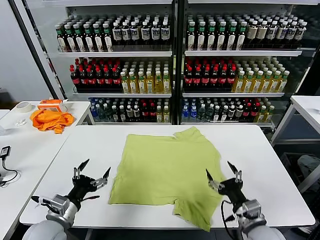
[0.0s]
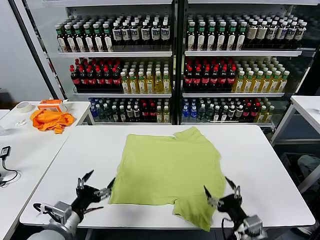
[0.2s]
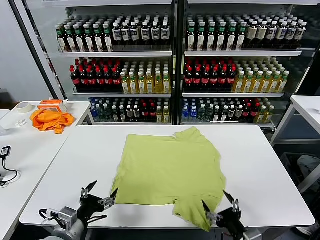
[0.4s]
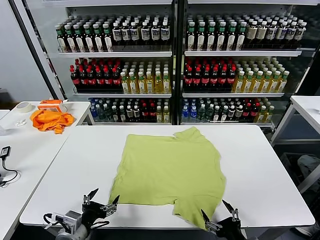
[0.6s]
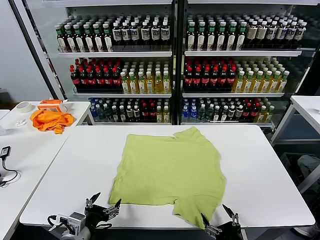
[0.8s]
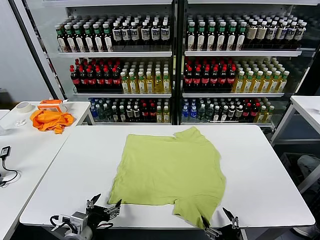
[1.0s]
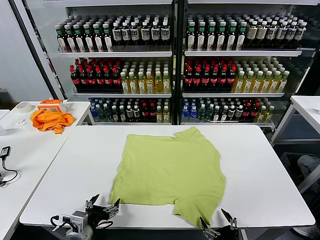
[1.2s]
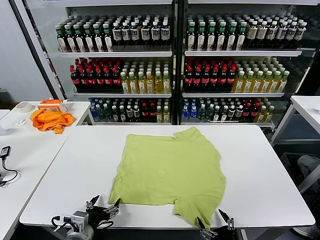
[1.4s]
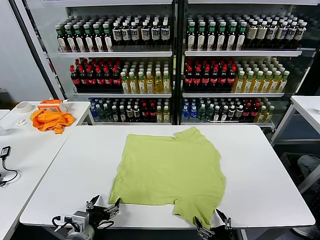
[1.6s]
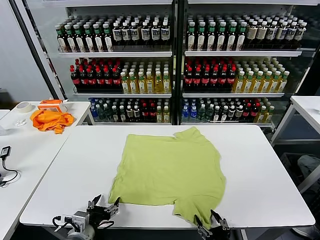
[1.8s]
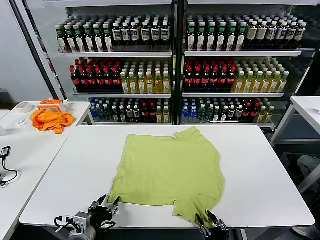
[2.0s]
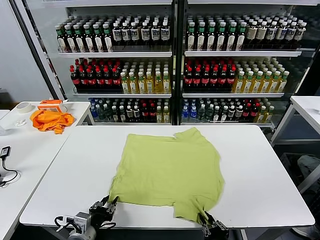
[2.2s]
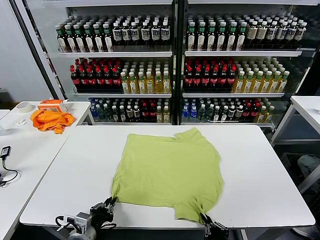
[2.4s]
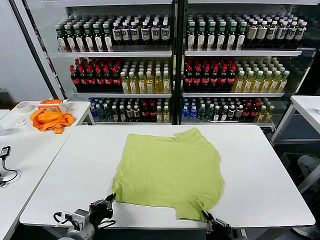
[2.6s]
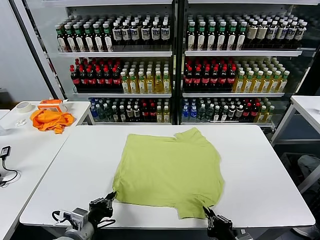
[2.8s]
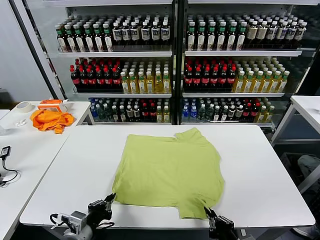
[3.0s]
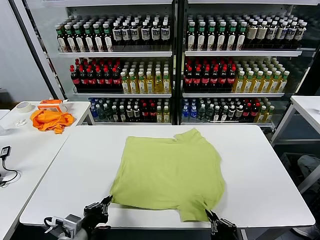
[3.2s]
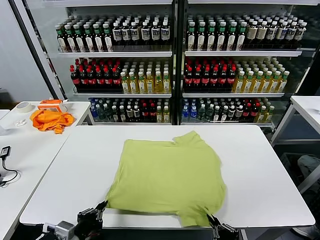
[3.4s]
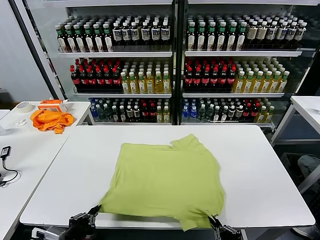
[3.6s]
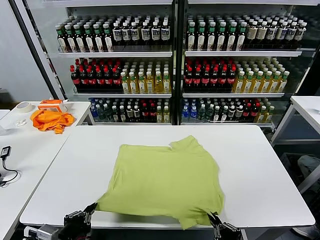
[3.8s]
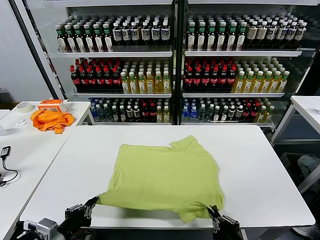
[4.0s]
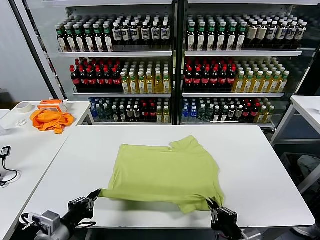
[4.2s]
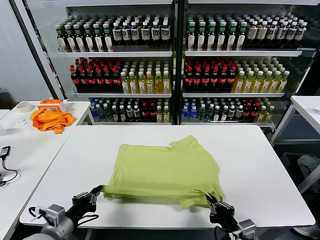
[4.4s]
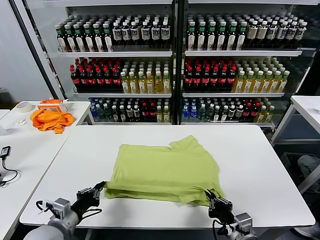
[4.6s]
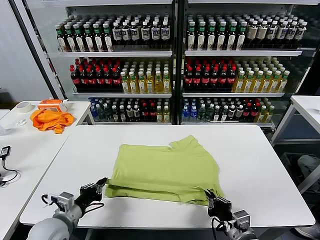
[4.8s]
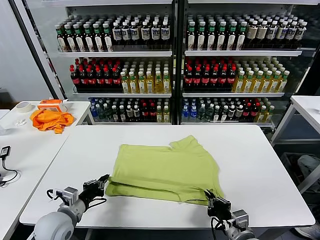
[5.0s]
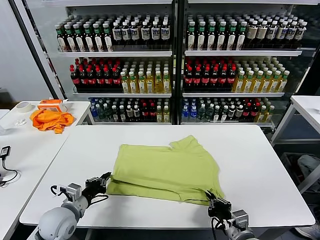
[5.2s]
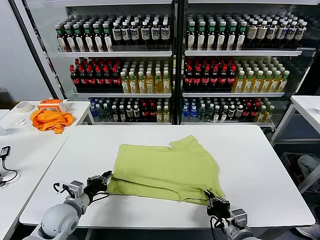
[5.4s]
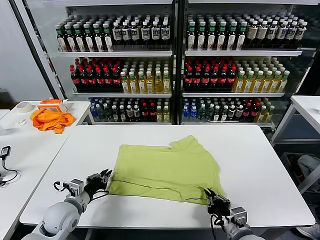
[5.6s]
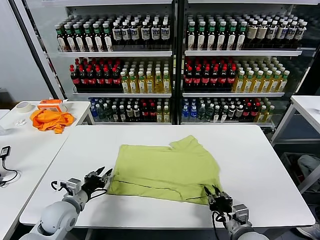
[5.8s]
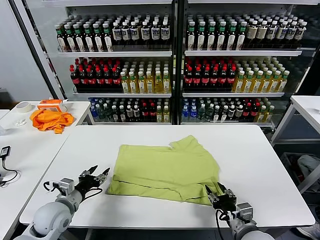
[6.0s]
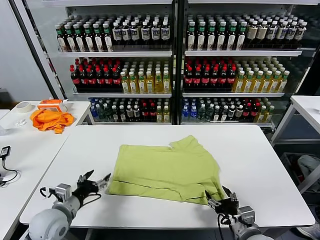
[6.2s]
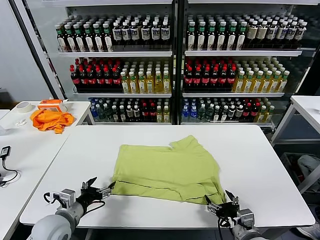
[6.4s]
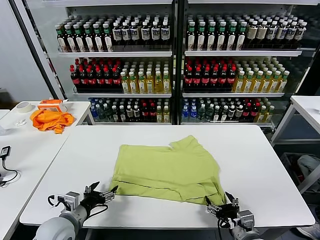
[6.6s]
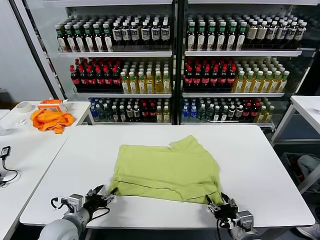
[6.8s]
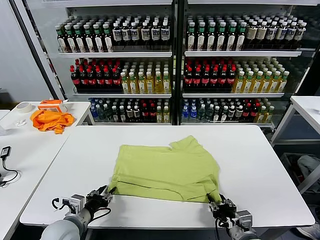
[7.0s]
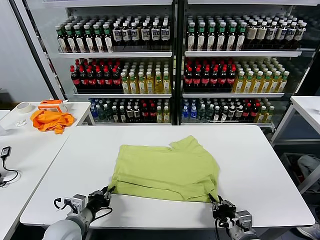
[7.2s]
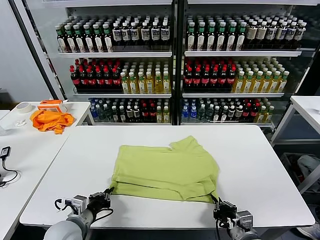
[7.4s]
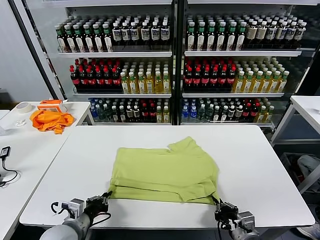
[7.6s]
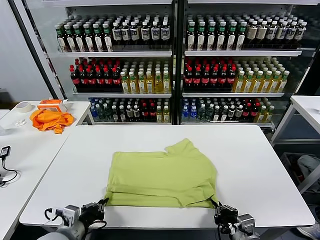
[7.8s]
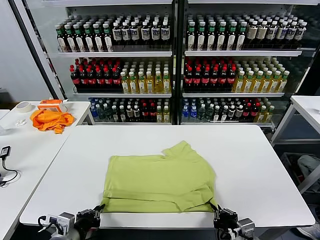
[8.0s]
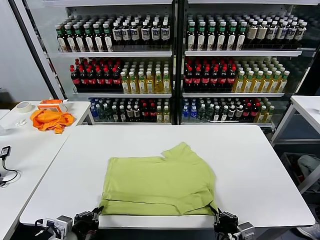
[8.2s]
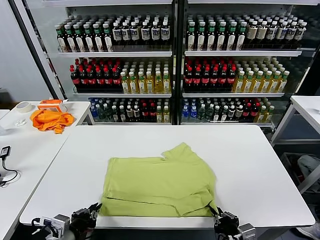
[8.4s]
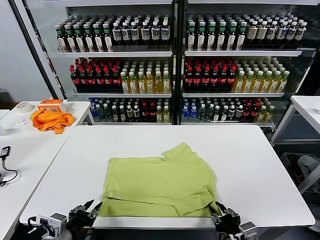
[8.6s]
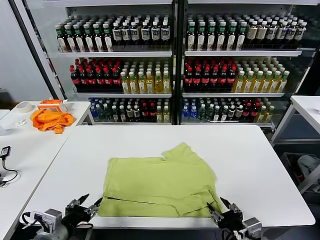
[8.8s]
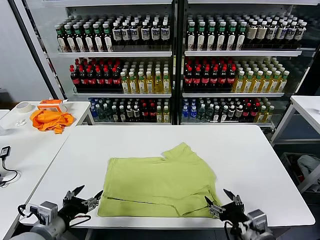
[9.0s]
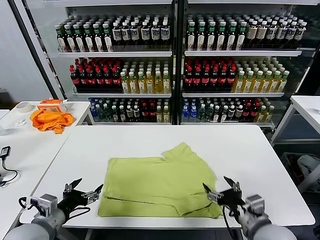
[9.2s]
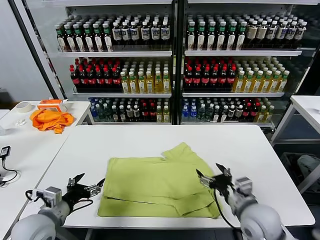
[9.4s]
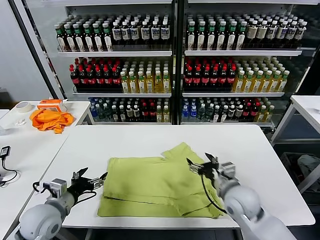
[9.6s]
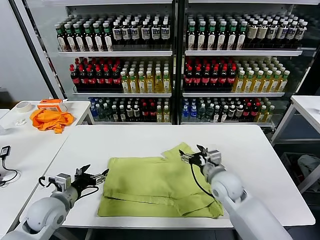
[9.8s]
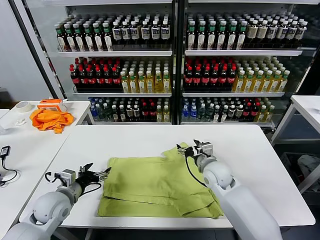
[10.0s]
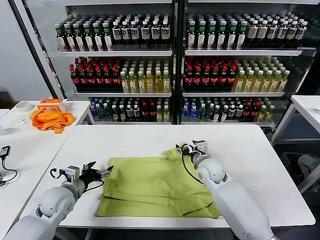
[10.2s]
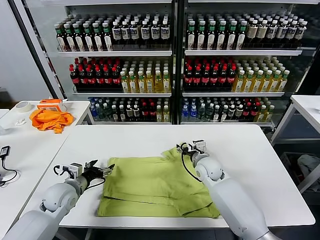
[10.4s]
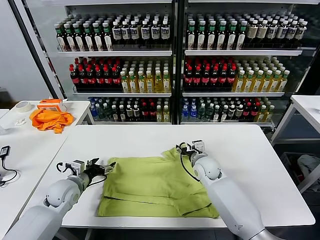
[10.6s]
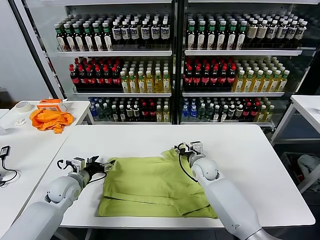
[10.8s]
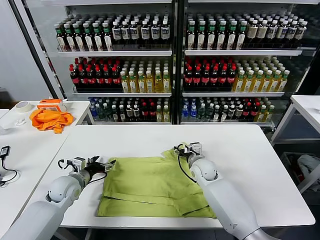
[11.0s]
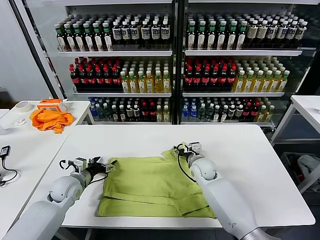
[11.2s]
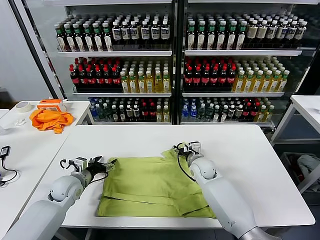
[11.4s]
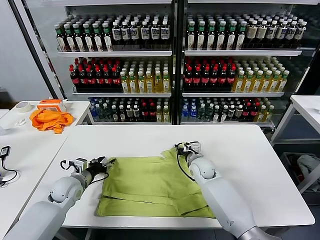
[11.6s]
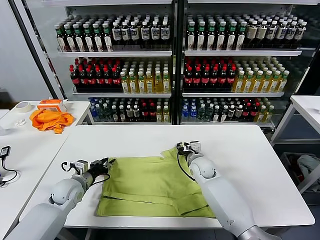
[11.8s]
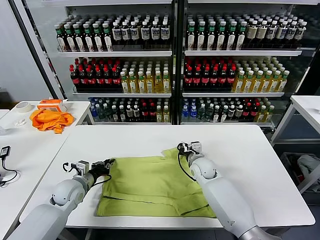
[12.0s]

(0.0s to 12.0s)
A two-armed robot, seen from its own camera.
Task of the whole recording: fold and organize the clothes.
Step, 0.0s - 2.4s: use both grippers simultaneously to clamp the lower edge of the clothing fabric.
Step, 2.6s - 5.8s: use both grippers to drag the lower edge of the fabric forward and fold it over the upper edge.
Step, 6.0s - 8.8s: Drag the clothes downward with both gripper.
1.6s - 3.0s: The right gripper closes; the left gripper closes.
3.0s - 4.4s: The left gripper shifts roughly 5 cm to the left. Meanwhile the right gripper goes some 5 cm forward.
4.4s - 6.0s: The right gripper opens its fingers, while the left gripper goes roughly 10 cm forward, and opens its fingers.
6.0s - 7.6s: The left gripper is displaced backward by roughly 5 cm, and closes its fingers. The right gripper closes up.
7.6s - 9.0s: Both grippers move upward, roughly 5 cm. The left gripper opens; the right gripper opens its fingers.
9.0s - 10.4s: The left gripper heads forward and downward, covering roughly 20 cm; the right gripper travels forward by some 30 cm.
10.4s - 12.0s: The right gripper closes; the left gripper closes.

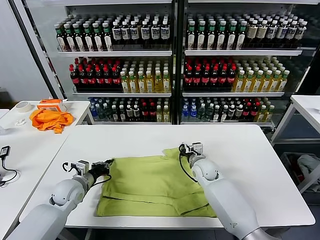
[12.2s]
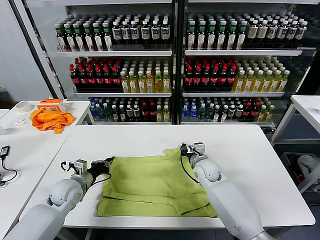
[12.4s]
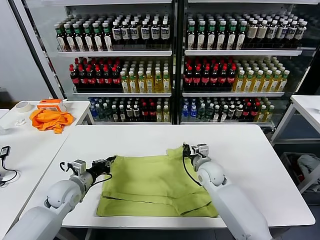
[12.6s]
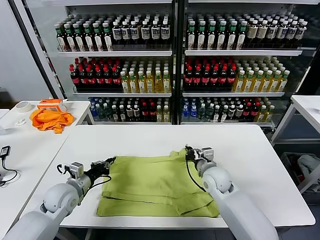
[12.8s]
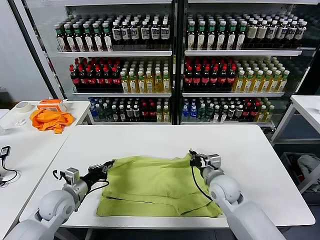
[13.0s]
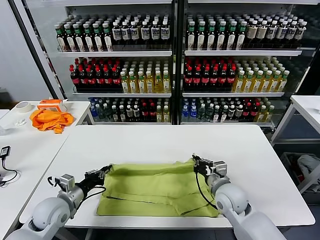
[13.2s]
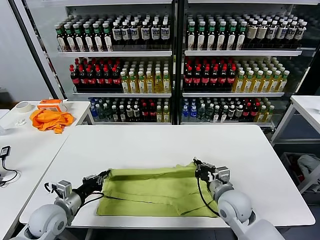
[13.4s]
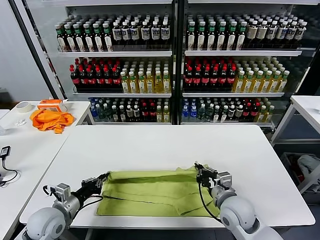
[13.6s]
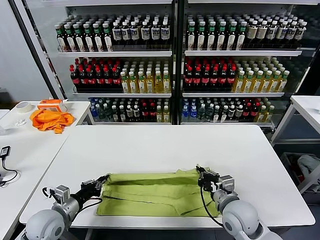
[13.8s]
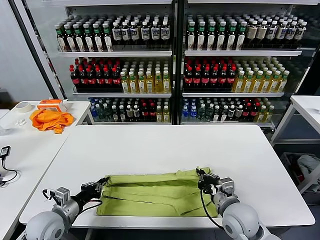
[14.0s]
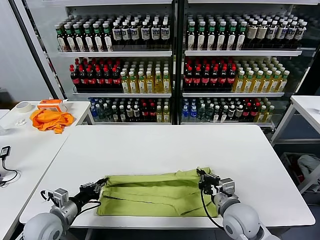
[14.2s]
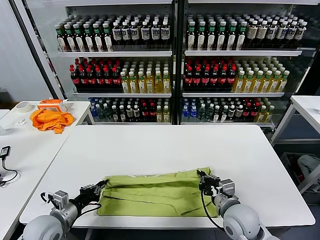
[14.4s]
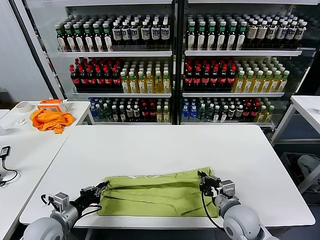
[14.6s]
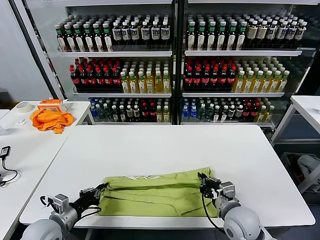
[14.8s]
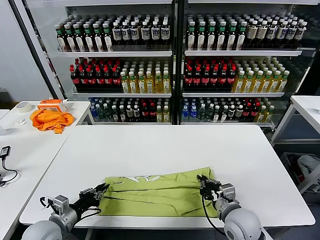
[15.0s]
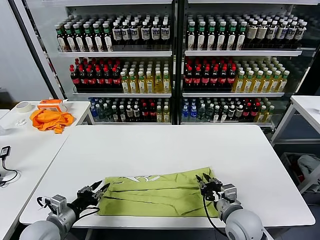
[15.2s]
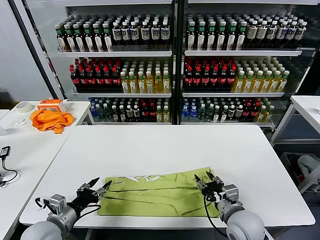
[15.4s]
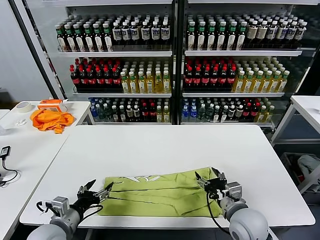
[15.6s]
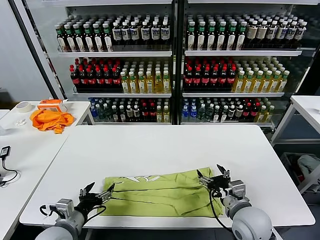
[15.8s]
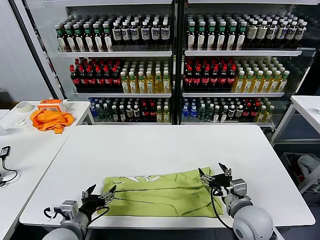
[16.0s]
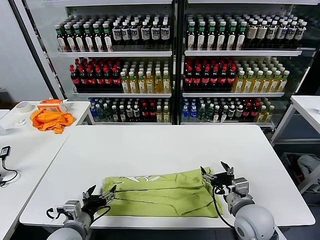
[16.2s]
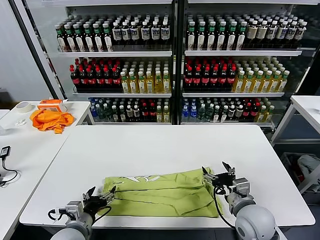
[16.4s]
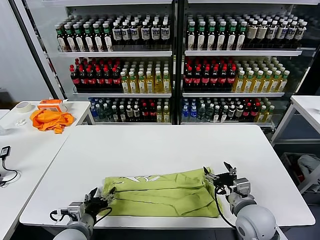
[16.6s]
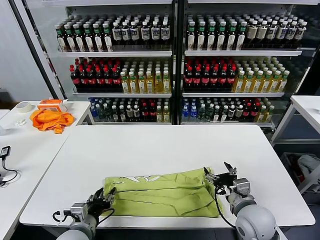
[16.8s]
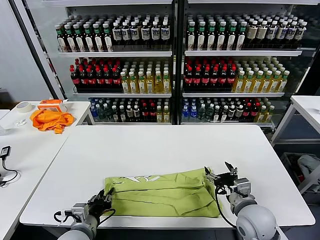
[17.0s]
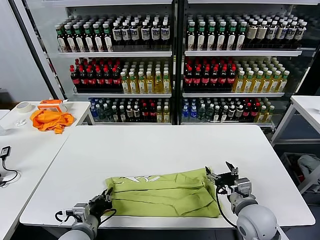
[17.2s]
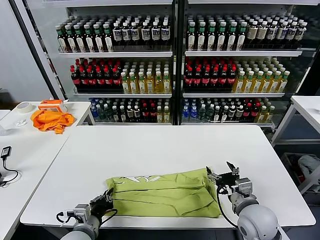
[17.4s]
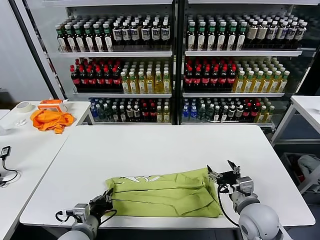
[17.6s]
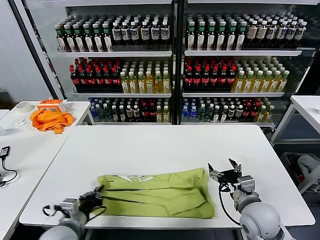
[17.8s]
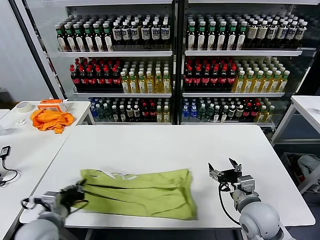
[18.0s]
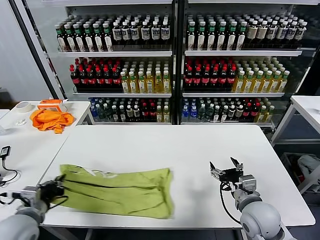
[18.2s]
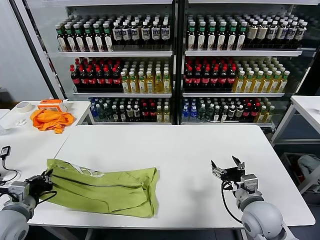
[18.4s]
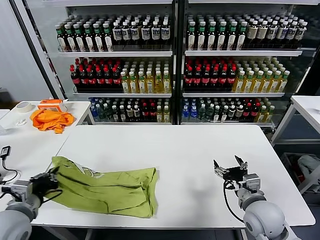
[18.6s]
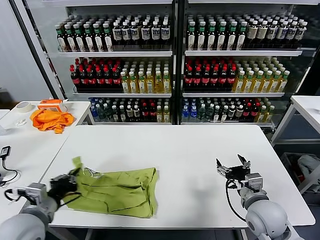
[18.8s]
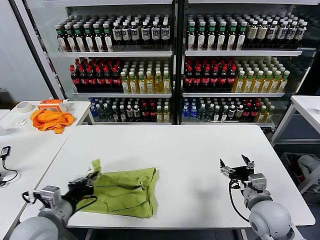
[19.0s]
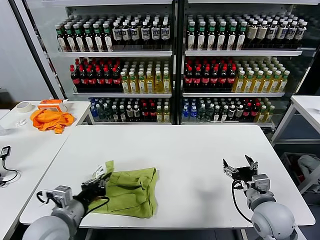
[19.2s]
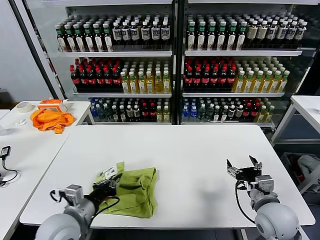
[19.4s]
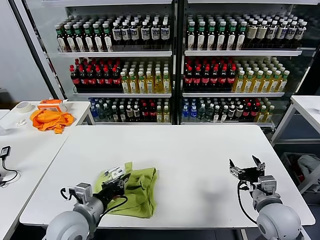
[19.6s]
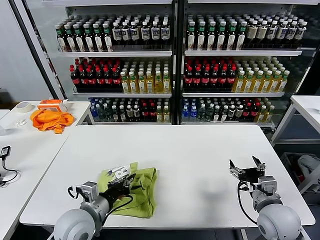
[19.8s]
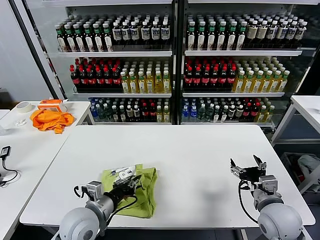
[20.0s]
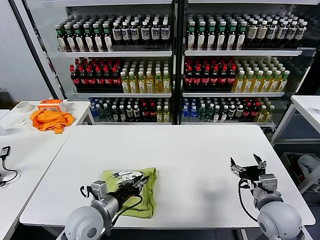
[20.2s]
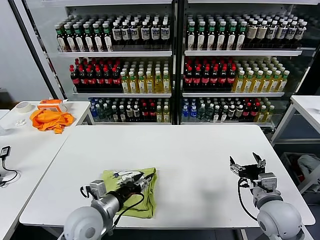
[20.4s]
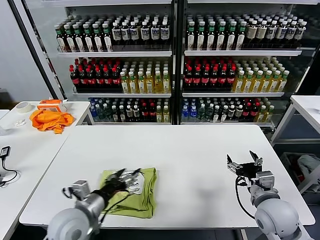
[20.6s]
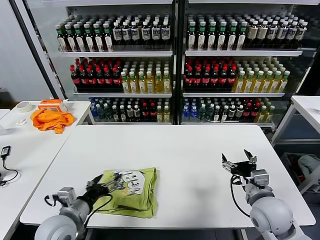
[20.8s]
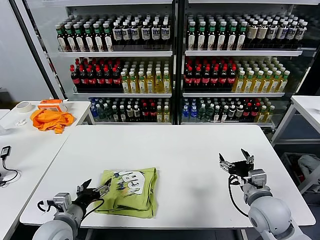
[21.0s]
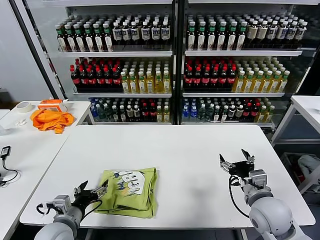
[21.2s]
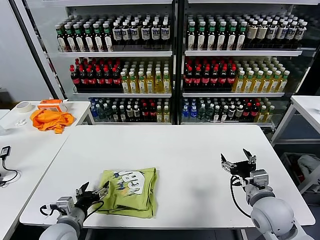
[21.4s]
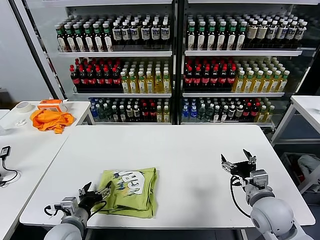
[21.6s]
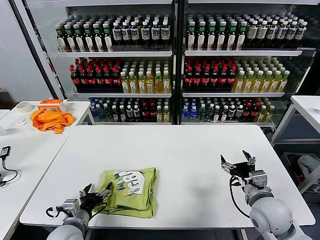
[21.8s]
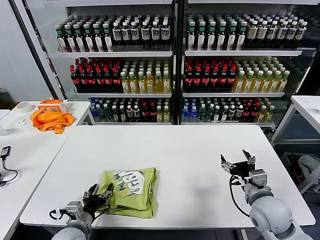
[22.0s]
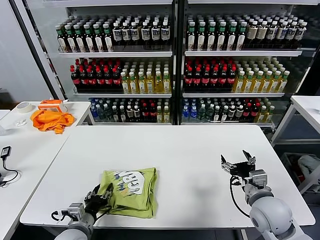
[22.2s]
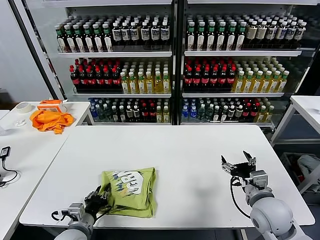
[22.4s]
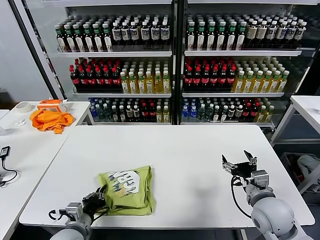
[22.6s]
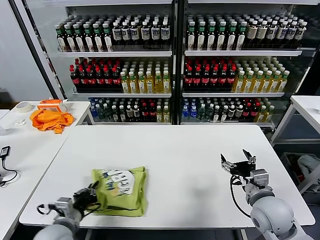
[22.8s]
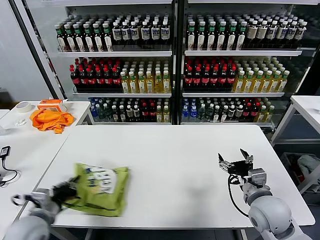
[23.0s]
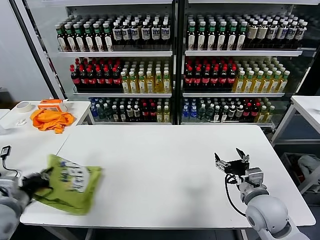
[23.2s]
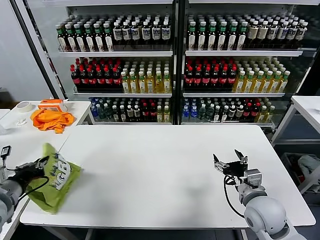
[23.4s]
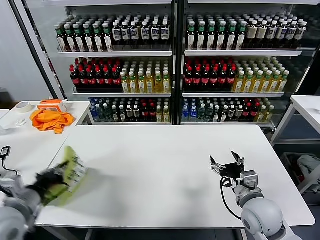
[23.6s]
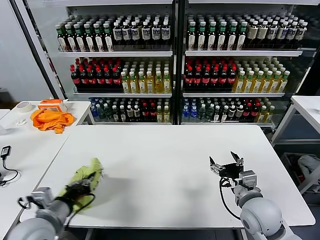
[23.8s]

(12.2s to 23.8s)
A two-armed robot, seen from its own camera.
Task of the whole recording: fold and organize the clothes.
Step, 12.4s - 15.2s: use both grippers to drag the upper edge of the fabric backward and fold it over the lower edge.
Step, 15.4s - 17.2s: use the left gripper to clamp the left edge of the fabric.
Step, 17.4s - 20.2s: use the left gripper to drag the left edge of the fabric to the left and folds it over the right edge.
12.2s - 13.6s: The right gripper is displaced backward by about 20 cm, while the left gripper is displaced backward by about 10 cm.
13.6s - 15.0s: There are only small adjustments of the grippers.
15.0s - 16.6s: The right gripper opens. The left gripper heads to the right, covering approximately 10 cm, and opens up.
16.6s - 18.0s: The left gripper shifts roughly 5 cm to the left, and closes up.
18.0s - 19.4s: The left gripper goes approximately 5 cm to the right.
19.4s - 21.0s: The left gripper travels downward by about 5 cm, and opens its fingers.
21.0s - 22.4s: The left gripper is displaced downward by roughly 5 cm, and closes up.
22.4s - 23.8s: The left gripper travels upward by approximately 15 cm, and closes.
